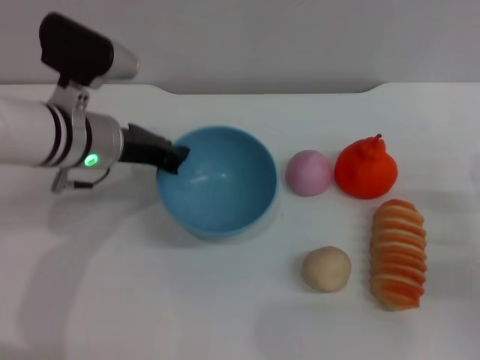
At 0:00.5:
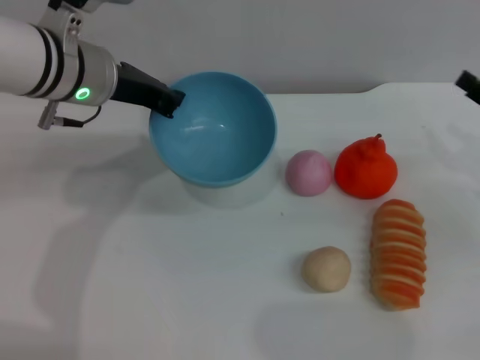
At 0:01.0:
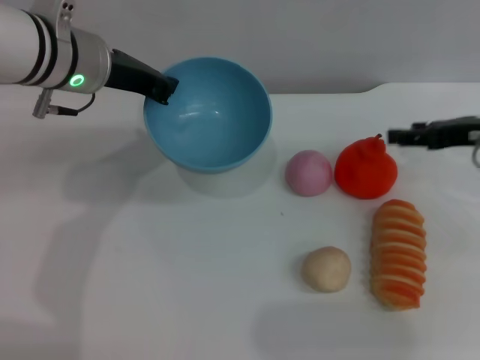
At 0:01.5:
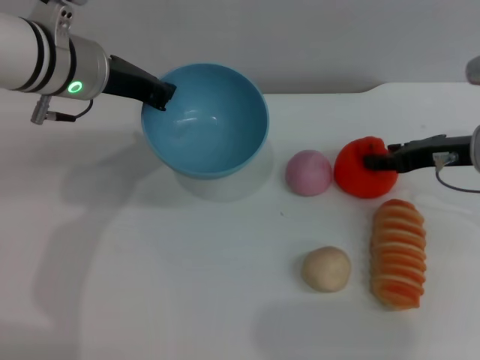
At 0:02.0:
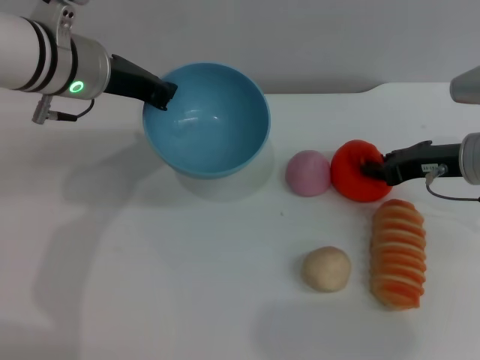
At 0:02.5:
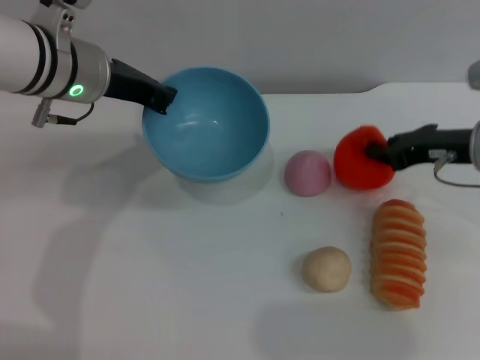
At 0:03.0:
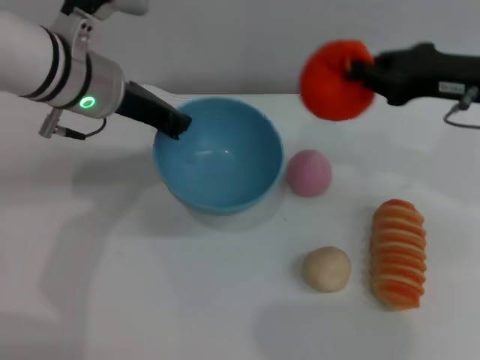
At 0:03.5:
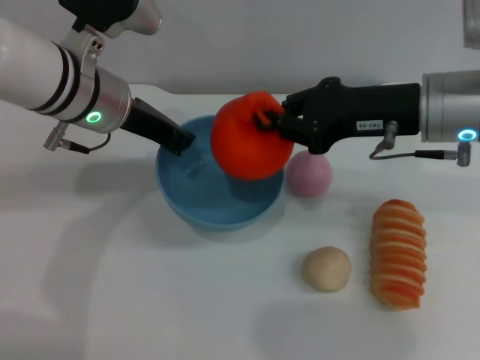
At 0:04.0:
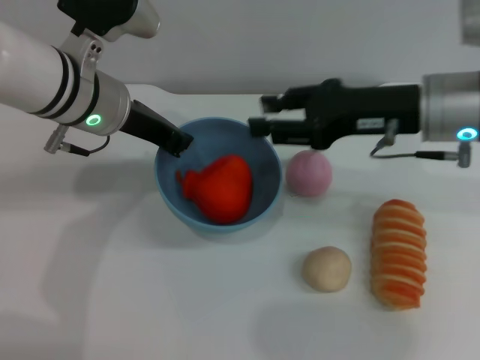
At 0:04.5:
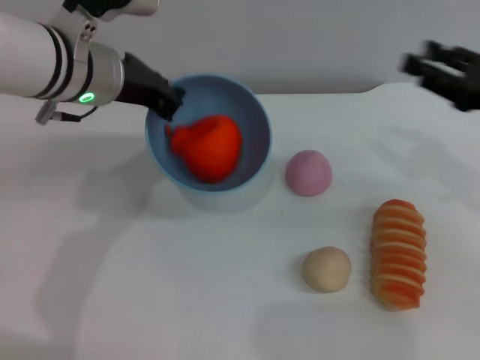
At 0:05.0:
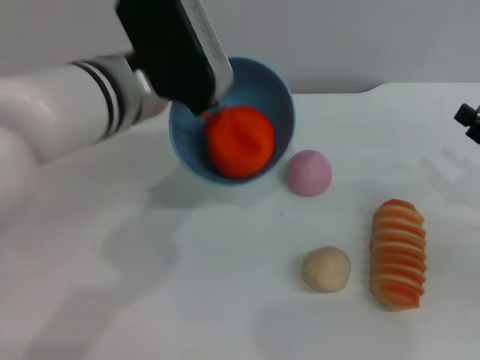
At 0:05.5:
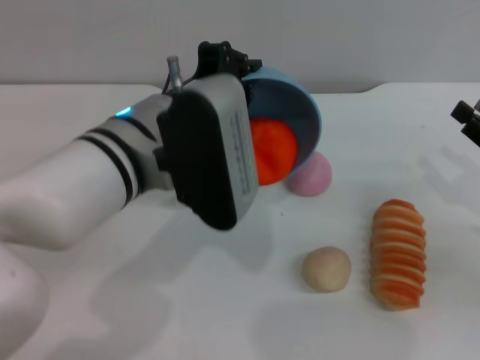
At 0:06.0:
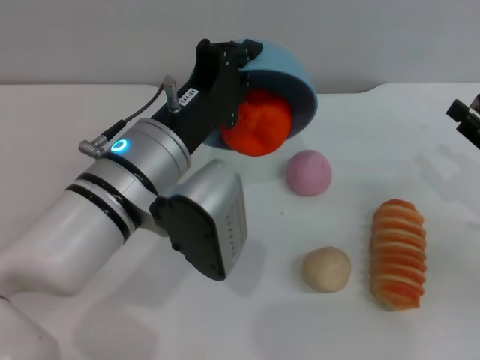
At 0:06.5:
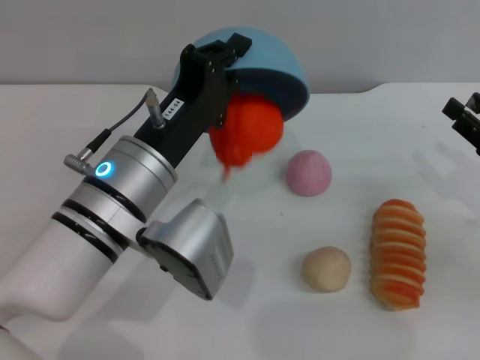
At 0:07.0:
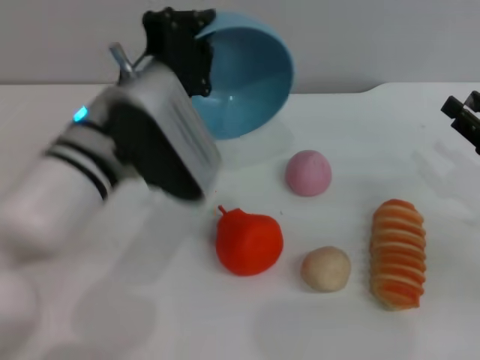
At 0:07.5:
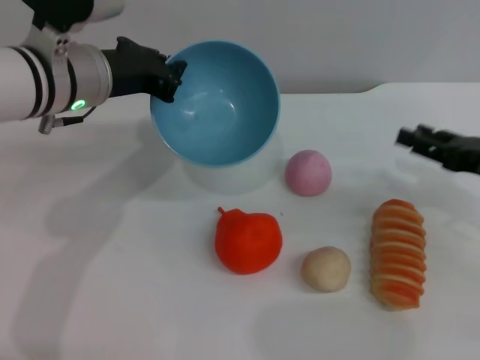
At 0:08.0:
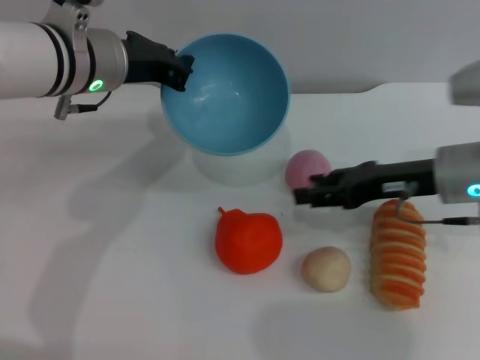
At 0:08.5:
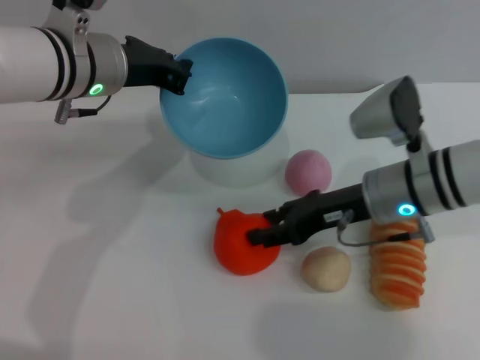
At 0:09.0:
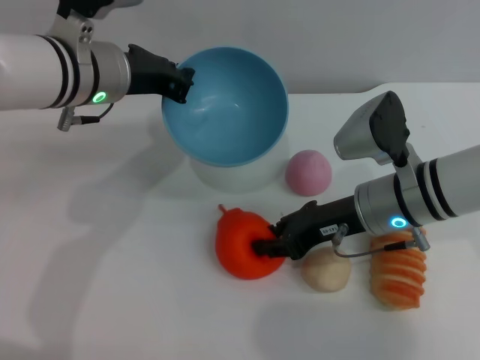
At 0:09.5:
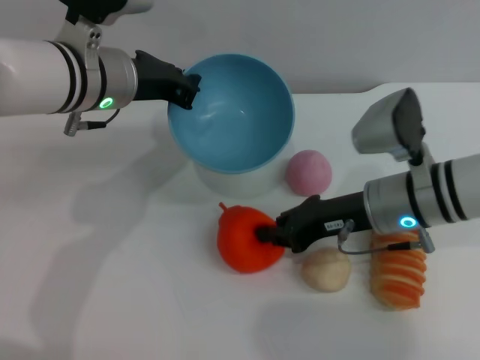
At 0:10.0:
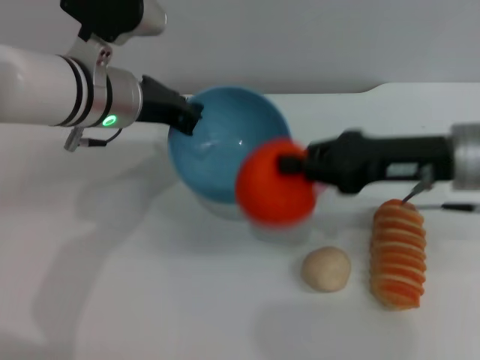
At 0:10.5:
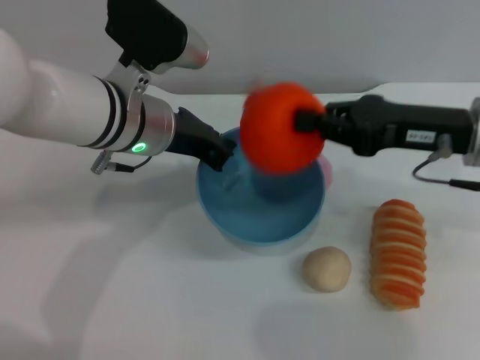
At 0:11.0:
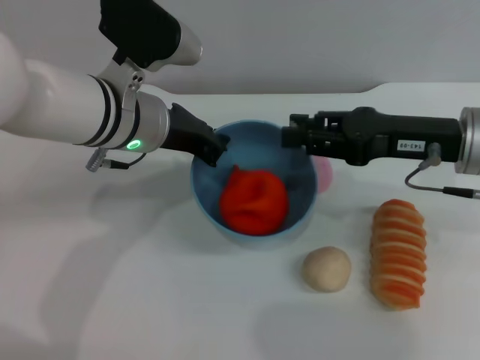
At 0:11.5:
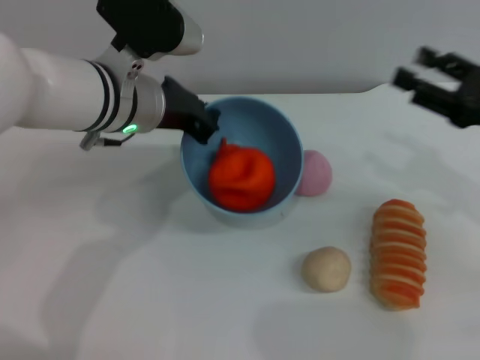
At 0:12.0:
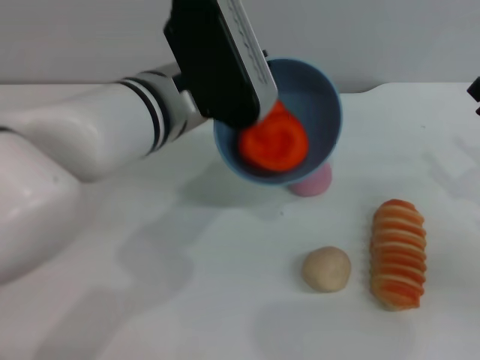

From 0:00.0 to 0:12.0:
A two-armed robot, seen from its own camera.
Task of the whole recording: put the orange into the blue bowl and pour it out repeatedly.
Step, from 0:00.5 to 0:02.5: Pick up the orange with the right gripper.
Step, from 0:03.0 to 0:04.0: Place the orange into the bowl.
Step, from 0:04.5 to 0:06.5: Pour the orange out of the bowl.
Step, from 0:07.0 to 0:09.5: Pick up the orange with the right gripper.
Step, from 0:10.5 to 0:11.0: Place the orange into the bowl.
From 0:00.0 to 0:02.0: The right gripper travels forward, upward and to the left by some 15 cm; the left gripper heads upward, covering roughly 5 cm.
From 0:02.0 to 0:04.0: The right gripper shifts about 10 cm upward and to the left, and closes and opens again.
From 0:04.0 to 0:06.0: The left gripper heads backward and to the right, covering some 10 cm. The right gripper moves to the right, downward and backward, some 20 cm.
From 0:06.0 to 0:08.0: The left gripper goes about 15 cm forward and to the left; the right gripper shifts about 15 cm to the left and forward.
From 0:08.0 to 0:10.0: The right gripper travels upward by roughly 5 cm, and closes.
From 0:10.0 to 0:12.0: The left gripper shifts some 5 cm to the right. Meanwhile the right gripper travels to the right, downward and backward by roughly 15 cm, and opens its fingers.

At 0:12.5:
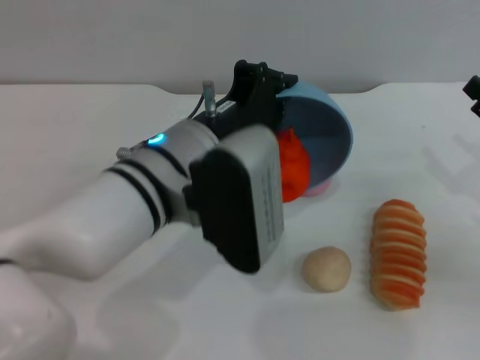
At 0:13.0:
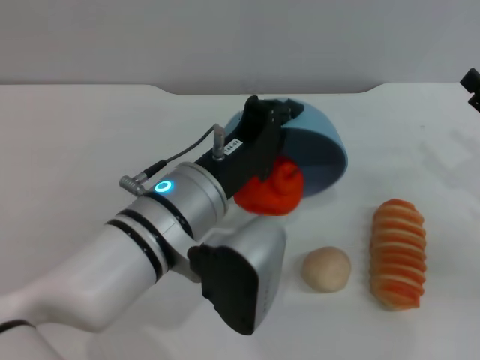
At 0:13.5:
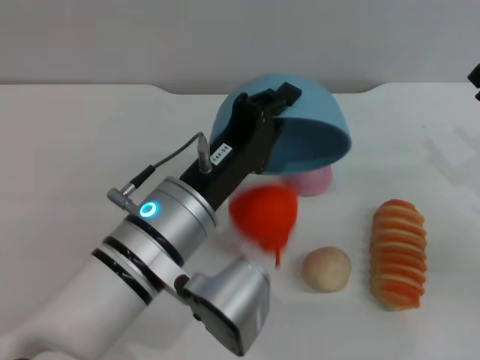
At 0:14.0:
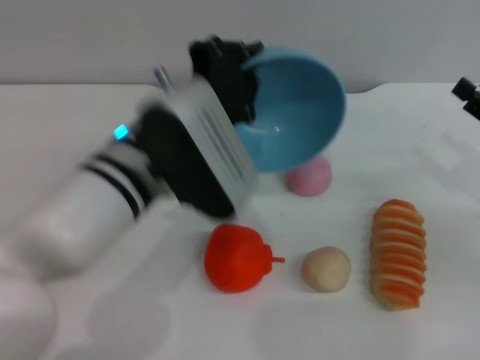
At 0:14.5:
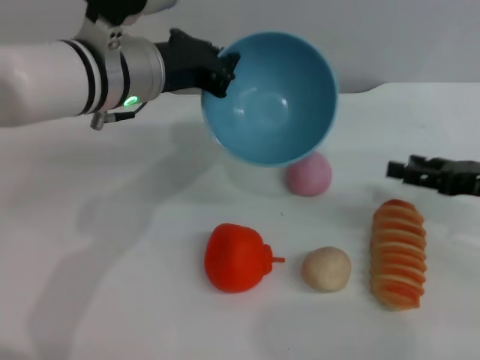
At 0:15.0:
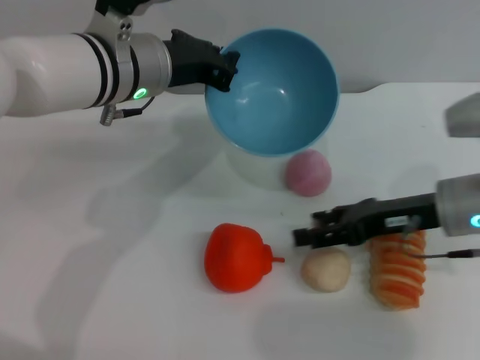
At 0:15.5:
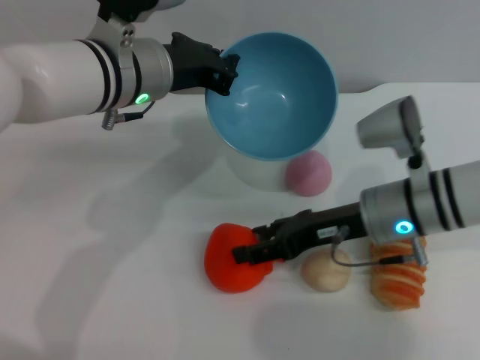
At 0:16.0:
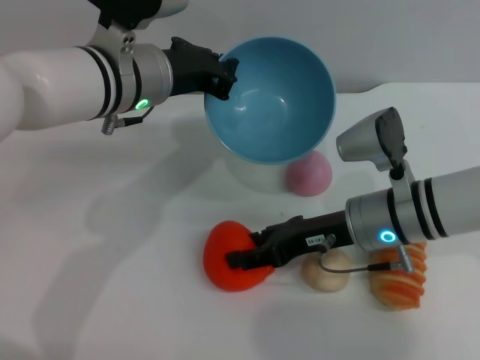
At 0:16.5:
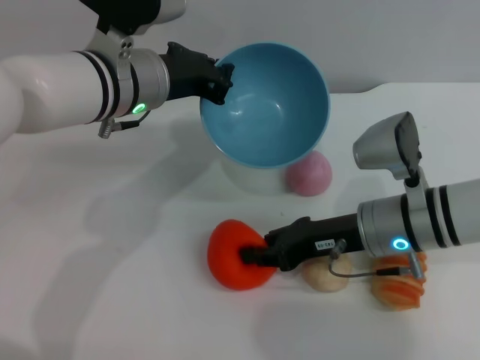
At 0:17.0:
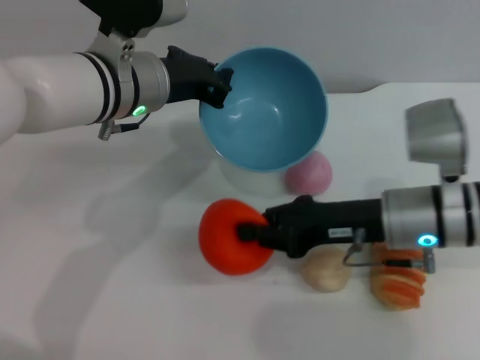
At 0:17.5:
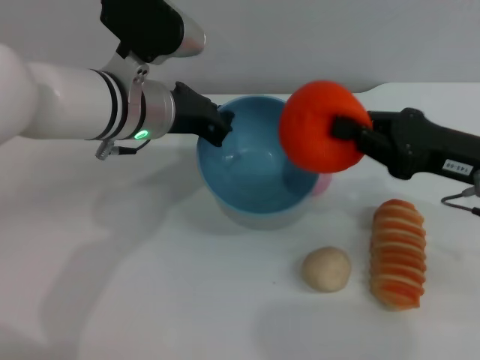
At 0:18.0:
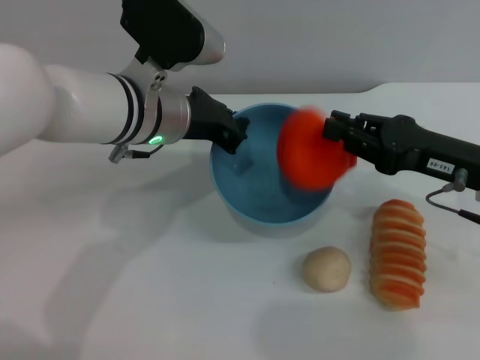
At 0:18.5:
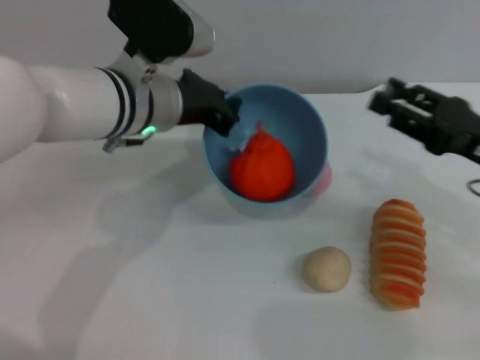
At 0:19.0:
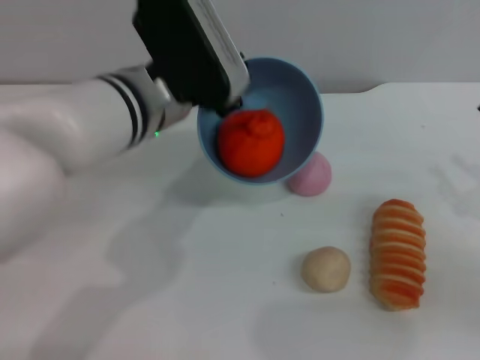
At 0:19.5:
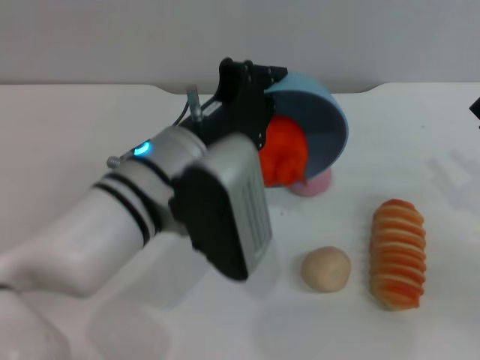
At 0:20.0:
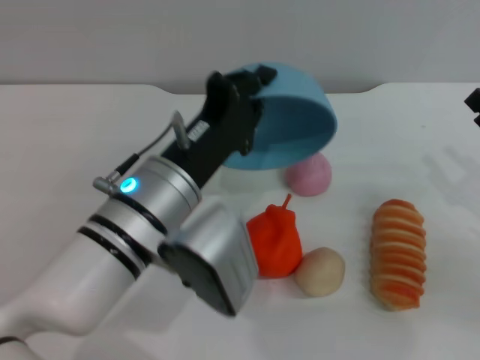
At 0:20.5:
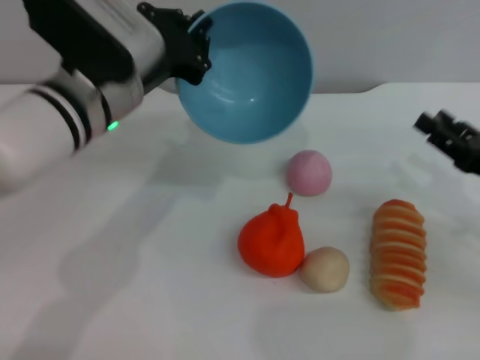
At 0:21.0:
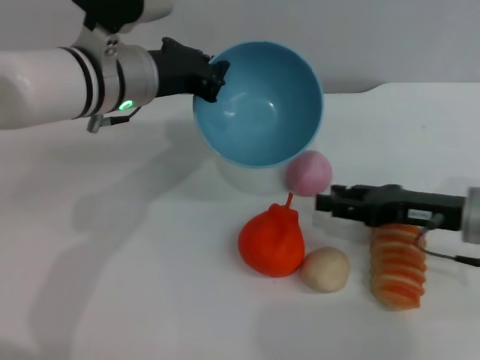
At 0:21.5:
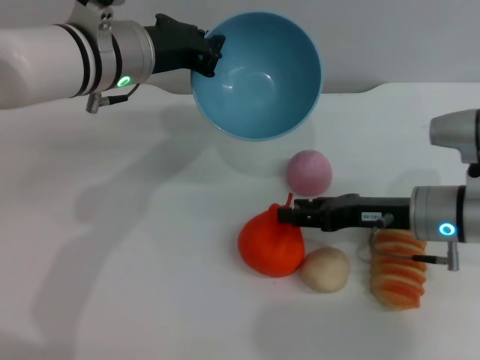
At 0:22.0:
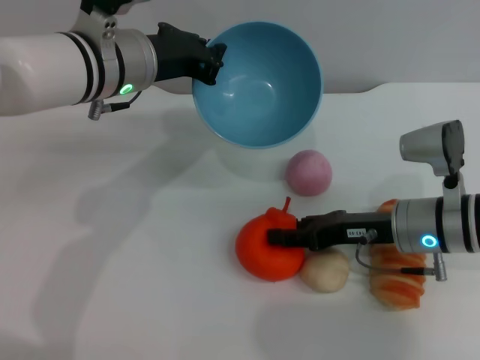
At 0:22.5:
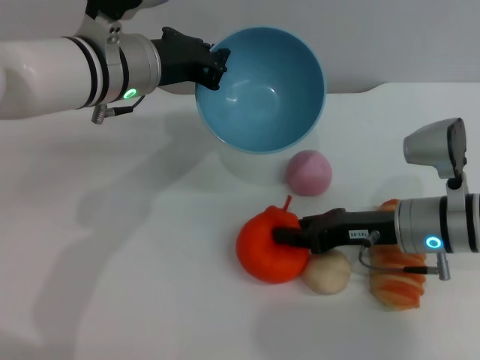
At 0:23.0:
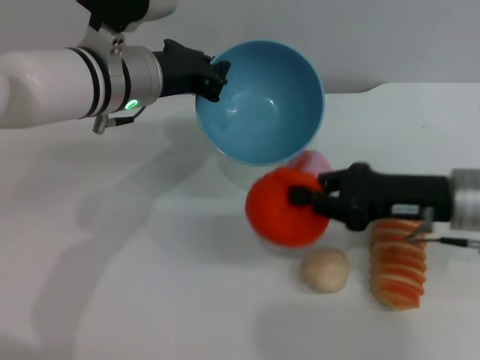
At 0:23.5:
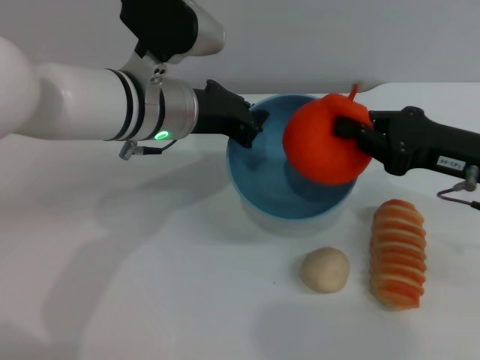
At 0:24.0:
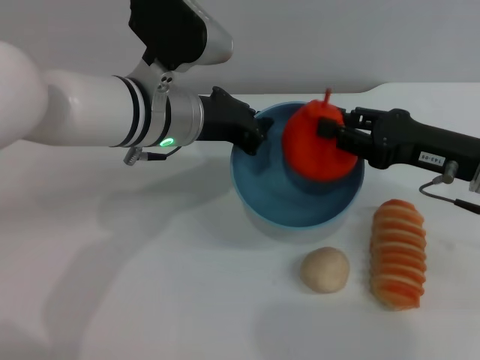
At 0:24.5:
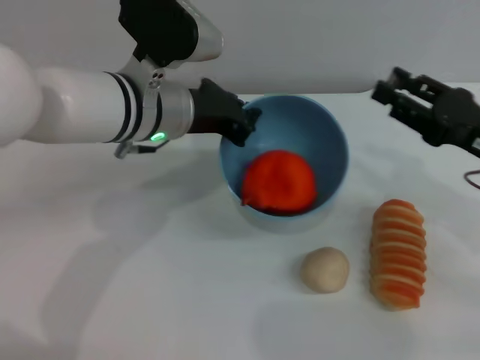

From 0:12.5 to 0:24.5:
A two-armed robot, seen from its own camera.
Task of the whole recording: put the orange into the blue bowl and pour it out repeatedly.
Step, from 0:14.0 to 0:17.0: Pick up the orange with the right gripper.
Step, from 0:17.5 to 0:18.0: Place the orange into the bowl.
Step, from 0:18.5 to 0:20.0: Pour the orange out of the bowl.
Step, from 0:20.5 to 0:23.0: Pick up the orange with the right gripper.
Step, from 0:23.5 to 0:24.0: Place the orange into the bowl.
From 0:12.5 to 0:14.5: The left gripper moves forward and to the left, some 10 cm.
From 0:14.5 to 0:16.5: The right gripper goes about 15 cm to the left, and closes its fingers.
From 0:16.5 to 0:18.5: The right gripper moves to the right, about 15 cm, and closes, then opens again.
From 0:18.5 to 0:20.5: The left gripper travels backward and back again, about 10 cm each way, while the right gripper moves some 5 cm.
From 0:20.5 to 0:22.5: The left gripper travels forward by some 5 cm. The right gripper heads to the left, covering some 10 cm, and closes up.
From 0:22.5 to 0:24.5: The right gripper goes some 10 cm to the right and upward.

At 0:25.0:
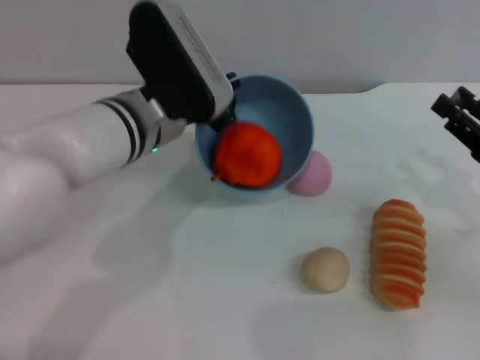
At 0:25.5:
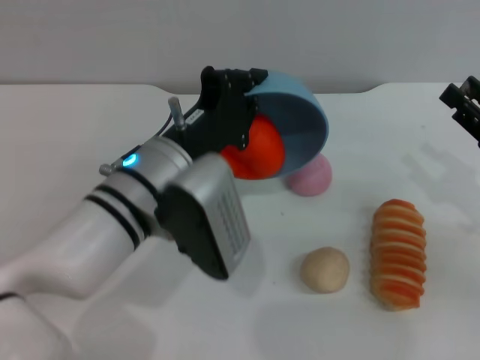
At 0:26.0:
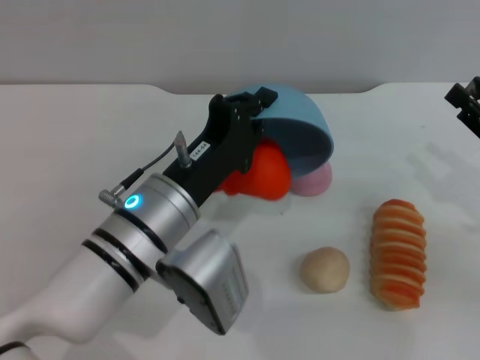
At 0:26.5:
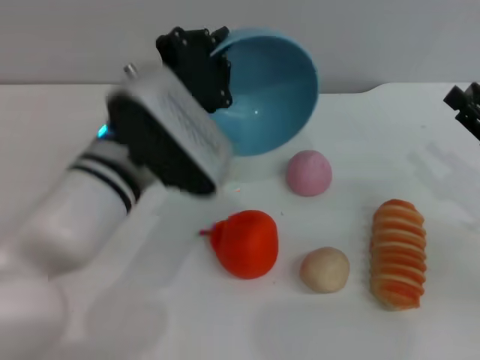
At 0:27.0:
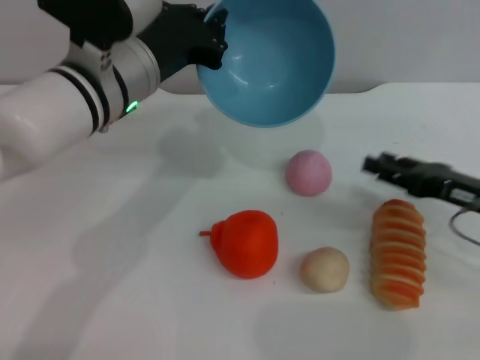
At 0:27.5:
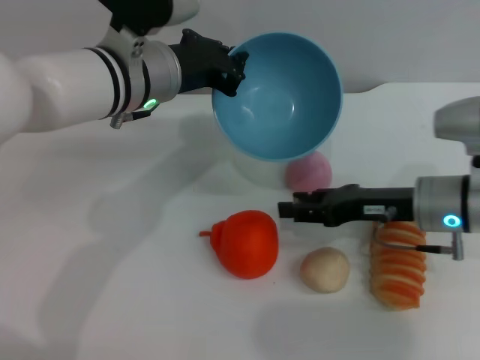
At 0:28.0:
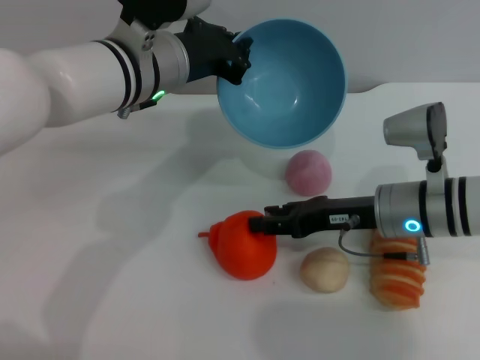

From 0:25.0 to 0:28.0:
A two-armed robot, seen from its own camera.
Task of the whole recording: put the orange into the blue bowl and pour it out repeatedly.
Step, from 0:25.0 to 0:26.0: Pour the orange out of the bowl.
From 0:25.0 to 0:26.5: The left gripper travels backward by roughly 5 cm.
From 0:26.5 to 0:28.0: The right gripper travels to the left by roughly 15 cm, while the left gripper shifts approximately 10 cm forward.
